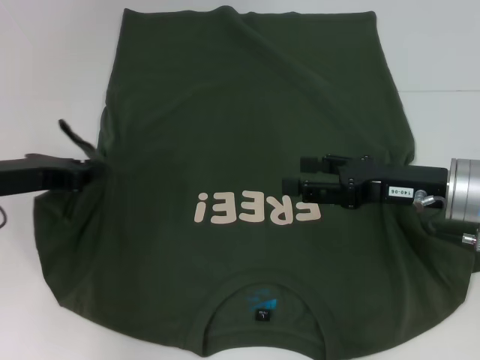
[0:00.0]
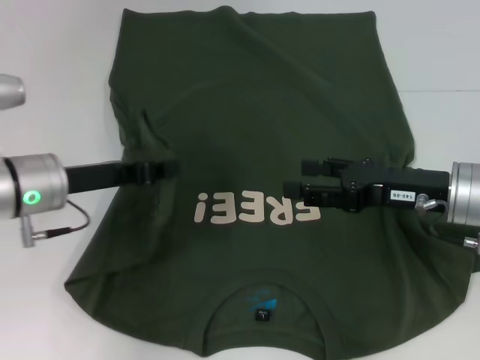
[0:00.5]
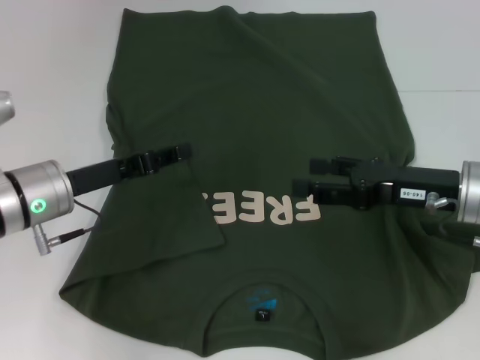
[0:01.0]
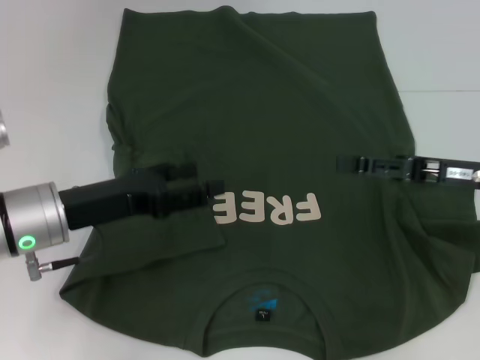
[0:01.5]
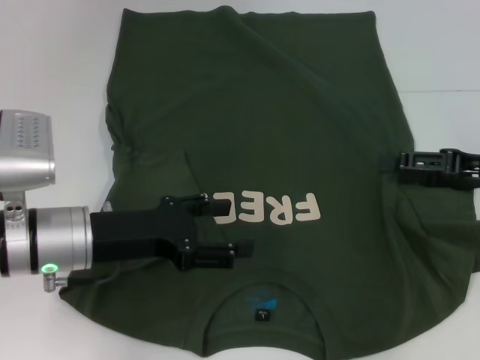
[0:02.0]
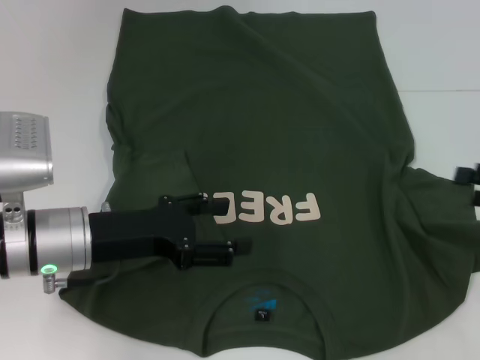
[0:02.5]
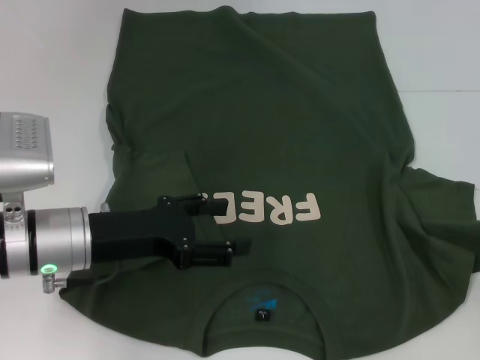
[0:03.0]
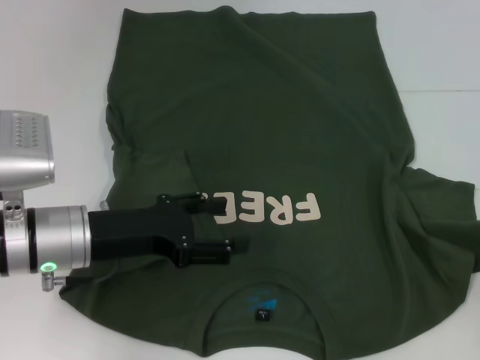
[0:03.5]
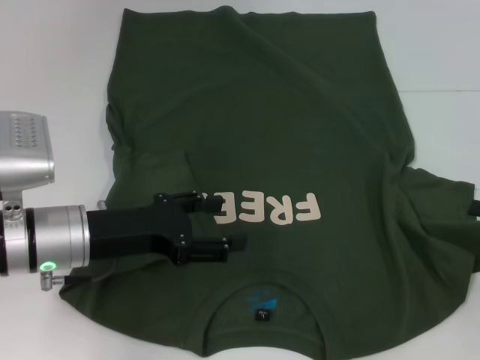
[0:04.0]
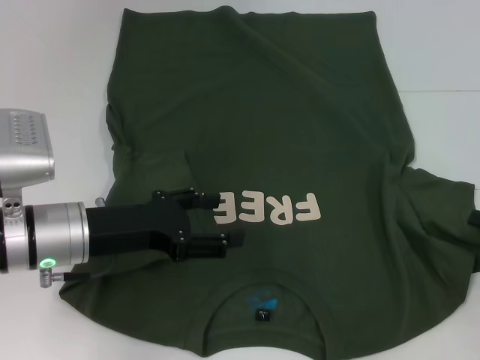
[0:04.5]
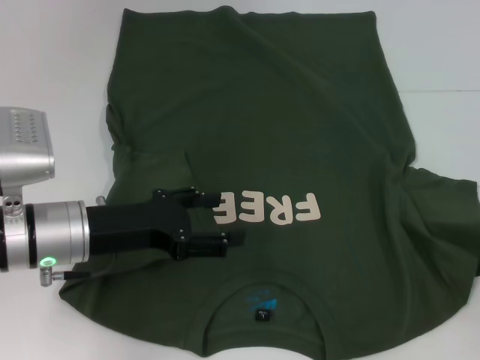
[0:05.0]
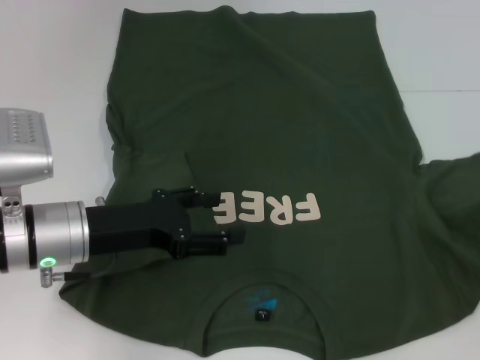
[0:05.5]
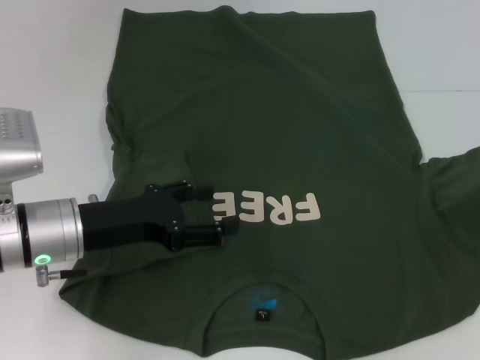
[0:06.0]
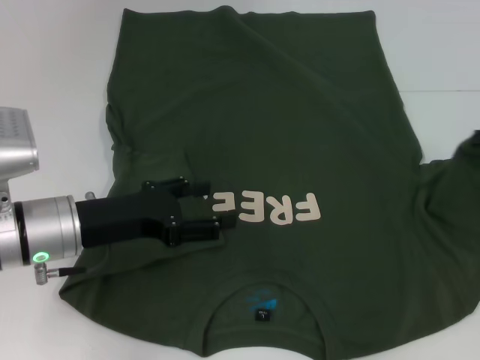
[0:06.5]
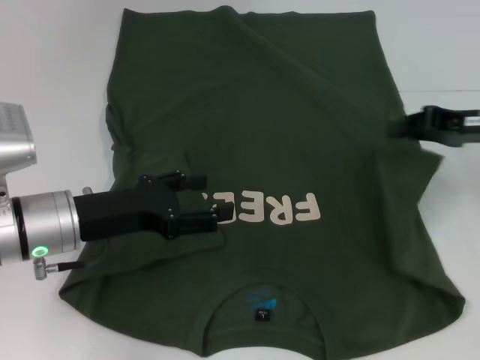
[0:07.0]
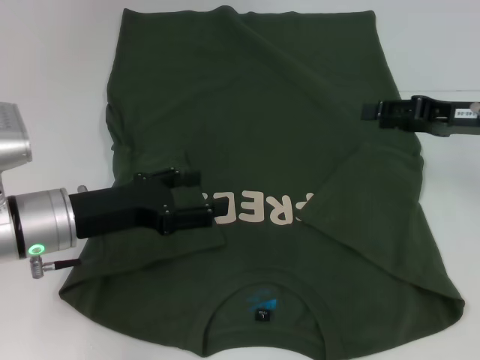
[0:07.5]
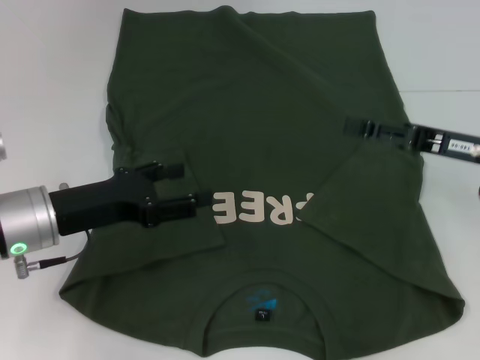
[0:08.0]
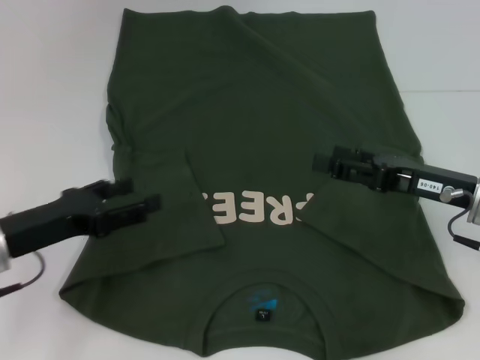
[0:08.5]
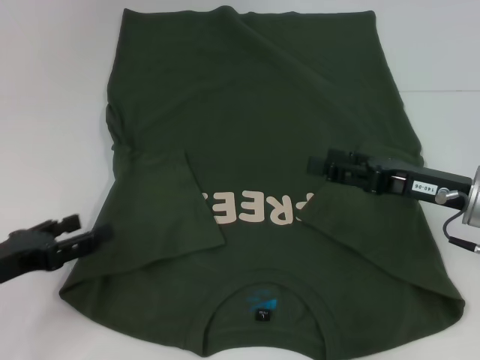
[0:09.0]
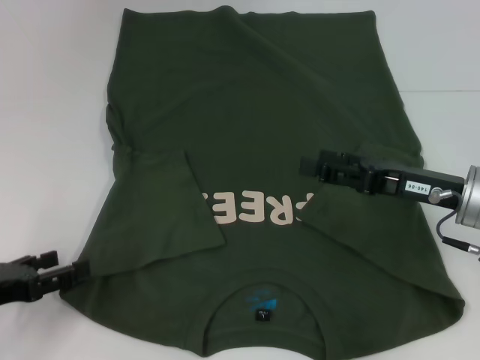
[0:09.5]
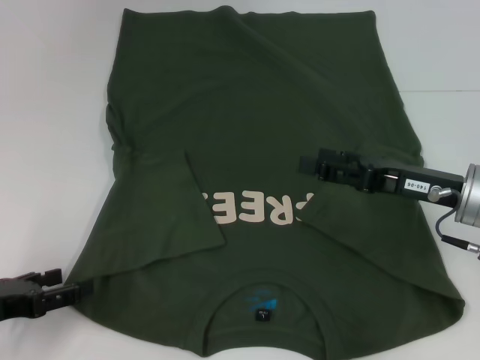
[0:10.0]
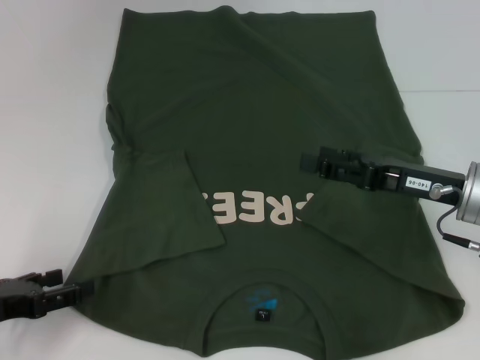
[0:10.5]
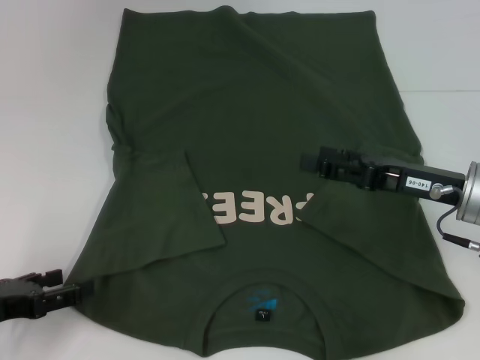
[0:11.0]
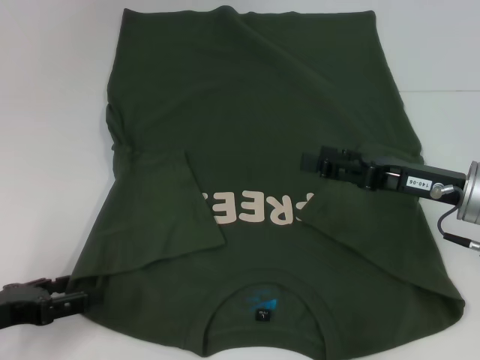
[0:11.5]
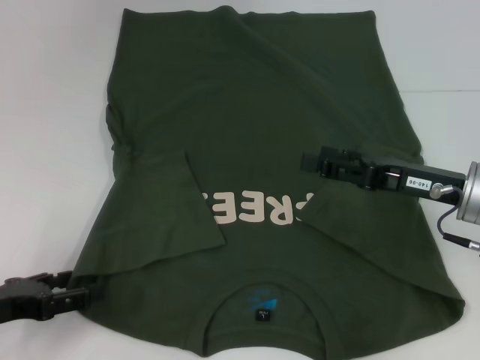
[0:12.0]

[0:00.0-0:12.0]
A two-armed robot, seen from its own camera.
Step, 1.0 to 7.0 s: Fold the bottom right sleeve with your right hand.
0.0 to 2.0 s: Both grippers travel together to the right, some 10 cm. The left gripper opens its fingers.
2.0 to 4.0 s: The right gripper heads to the right, downward and backward, covering some 10 cm.
4.0 to 6.0 s: The right gripper heads upward, covering about 5 cm, and closes.
6.0 to 8.0 s: The right gripper is displaced to the left by approximately 15 cm, and opens.
8.0 to 10.0 s: The left gripper heads to the left and backward, covering roughly 15 cm. Meanwhile the right gripper shifts by some 5 cm.
10.0 to 12.0 s: Both grippers stay about where they are.

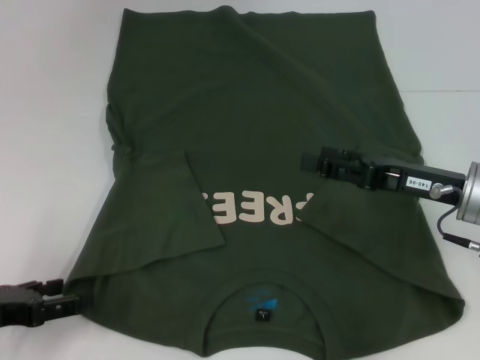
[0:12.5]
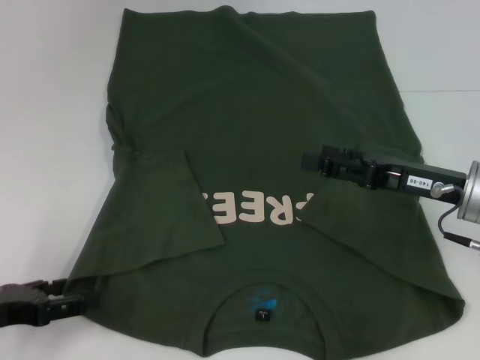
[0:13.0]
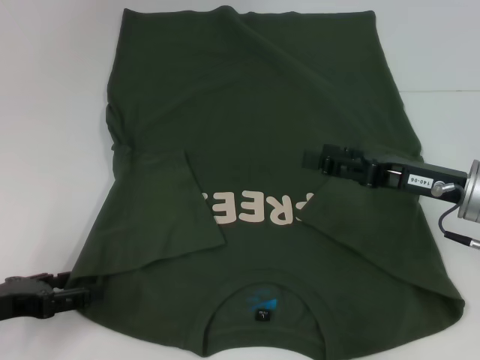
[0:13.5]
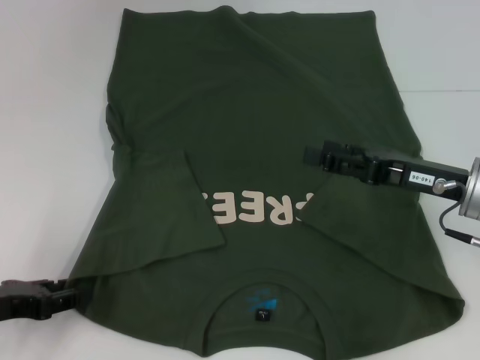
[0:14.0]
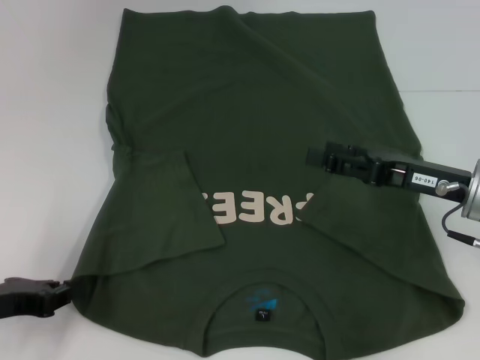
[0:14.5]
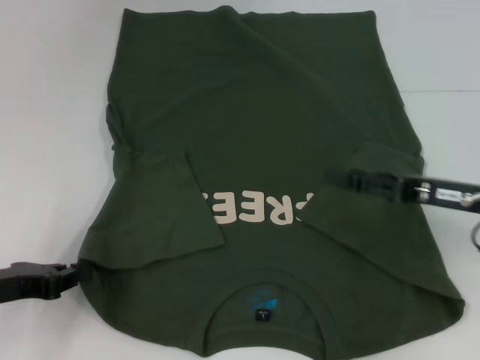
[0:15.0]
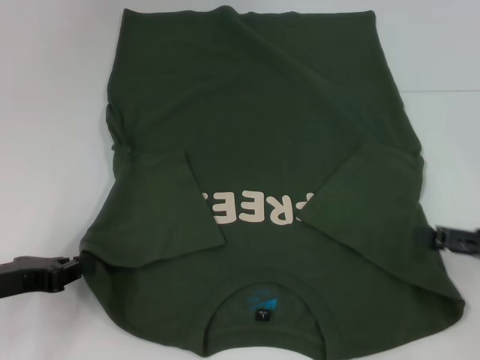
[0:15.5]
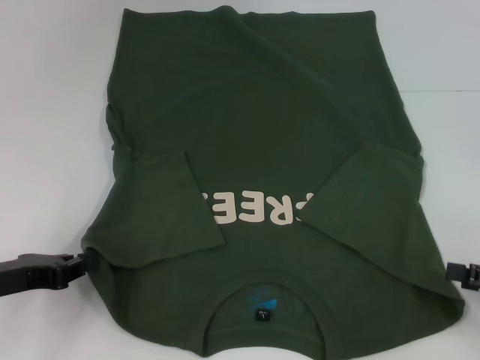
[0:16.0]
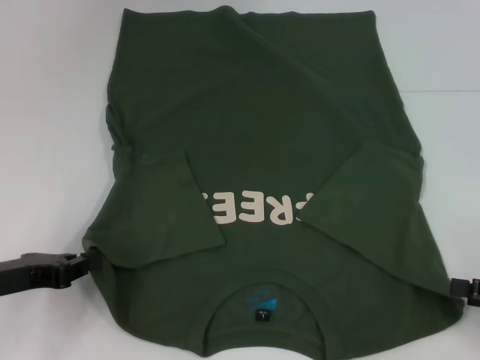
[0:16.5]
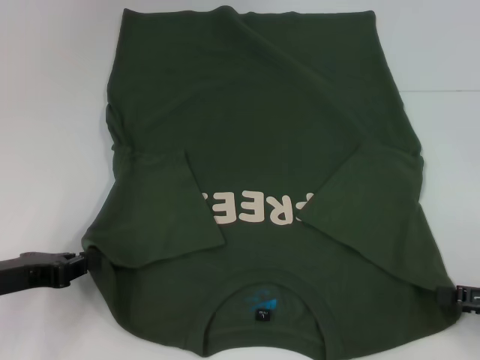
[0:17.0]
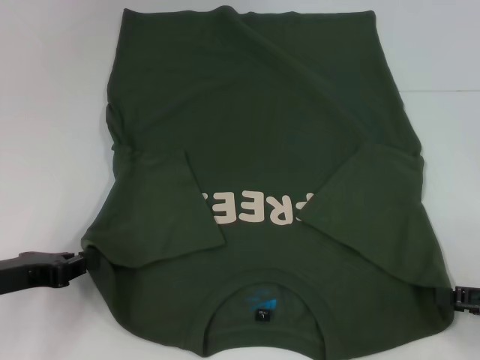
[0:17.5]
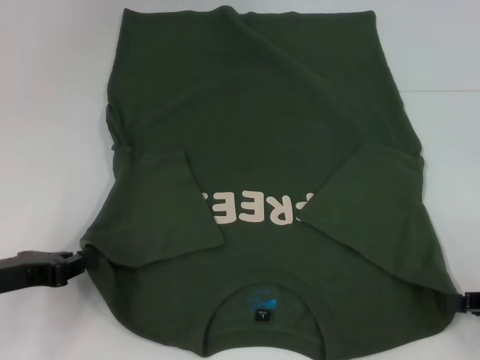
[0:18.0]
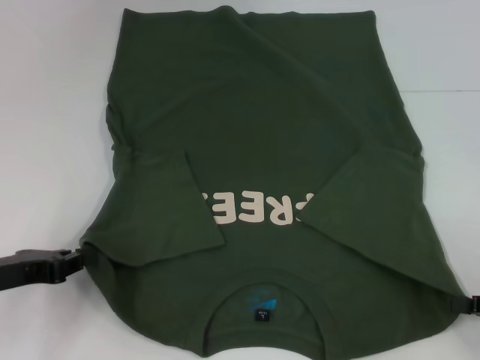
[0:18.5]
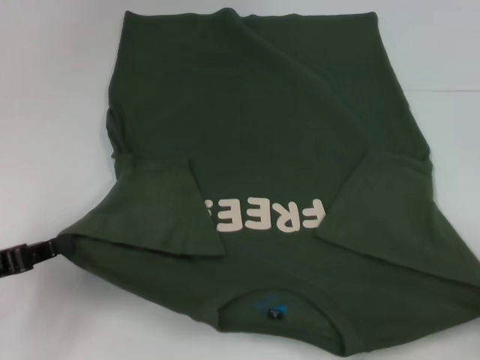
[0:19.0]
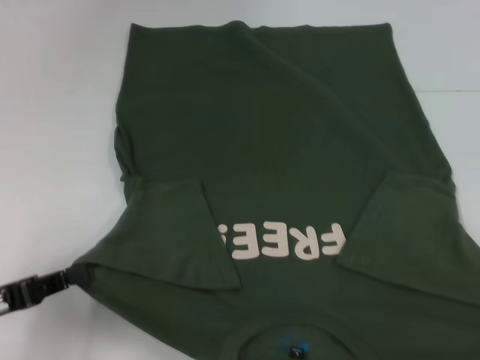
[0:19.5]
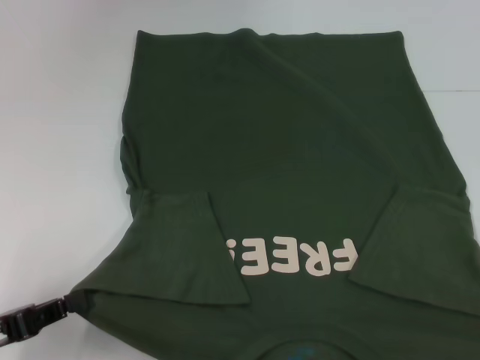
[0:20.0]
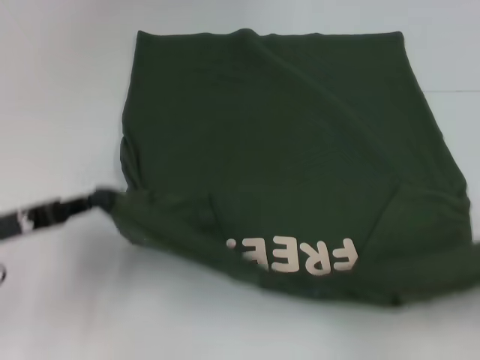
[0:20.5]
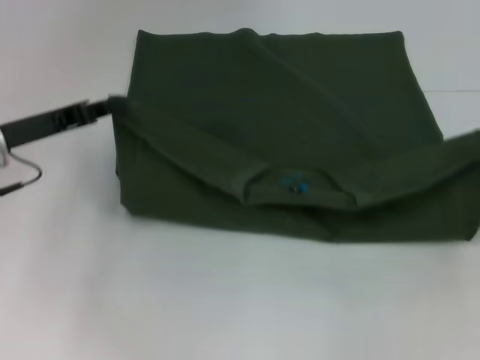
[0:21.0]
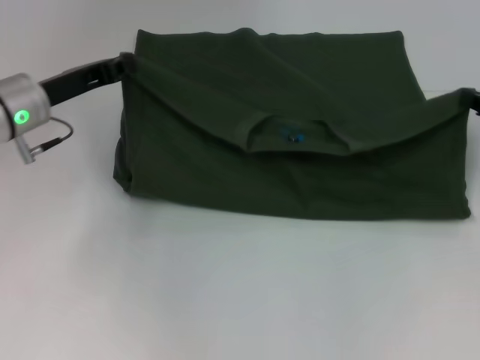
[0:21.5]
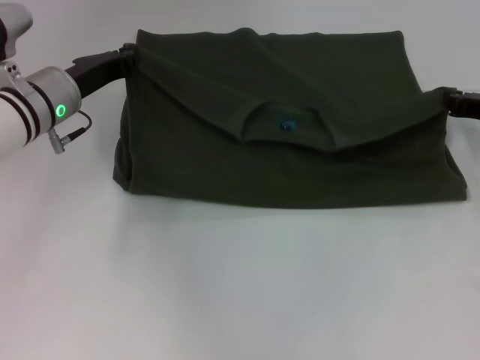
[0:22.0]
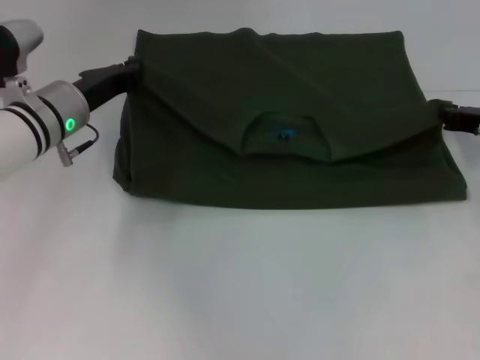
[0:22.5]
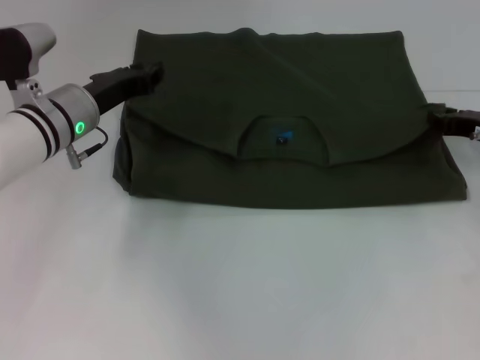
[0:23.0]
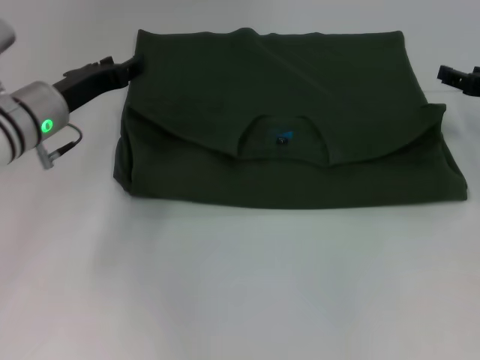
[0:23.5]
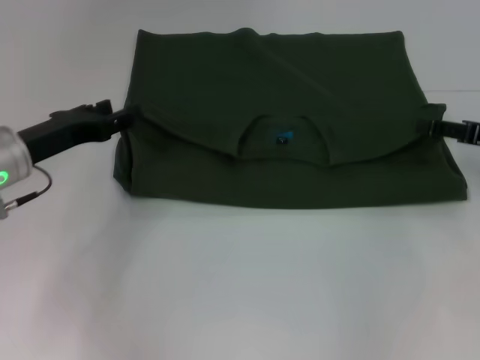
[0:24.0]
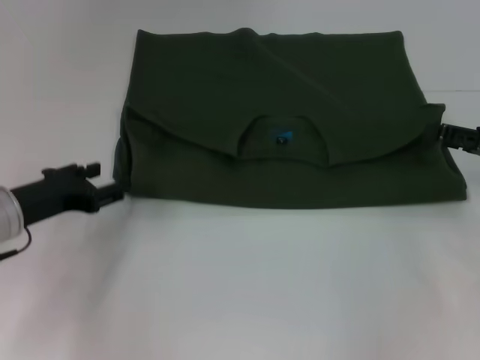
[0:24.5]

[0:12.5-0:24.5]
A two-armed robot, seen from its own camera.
Step, 12.5 to 14.5 s: Grab the bottom left corner with your left hand.
Step, 15.0 to 18.0 s: Grab the bottom right corner with your right hand.
Step, 18.5 to 22.5 s: Fold the clothes with your left hand.
Step, 18.5 to 22.5 s: Fold the clothes with your right hand.
12.5 to 14.5 s: The left gripper closes up.
14.5 to 16.5 s: The right gripper shifts some 15 cm to the right and backward.
16.5 to 18.5 s: The right gripper closes its fingers.
18.5 to 20.5 s: The right gripper moves to the right, some 5 cm, and moves some 10 cm backward and comes back. Meanwhile the left gripper travels backward and back again, approximately 10 cm each way.
20.5 to 22.5 s: The left gripper travels forward and to the right by roughly 20 cm, while the right gripper moves forward and to the left, roughly 25 cm.
22.5 to 24.5 s: The right gripper shifts about 5 cm backward, and opens its fingers. Meanwhile the left gripper shifts roughly 10 cm backward and to the left, and opens up.

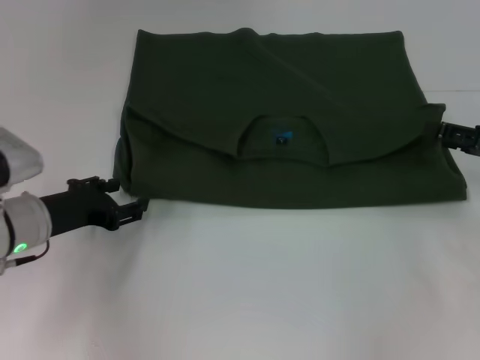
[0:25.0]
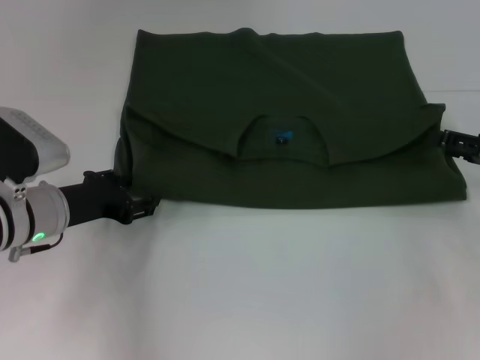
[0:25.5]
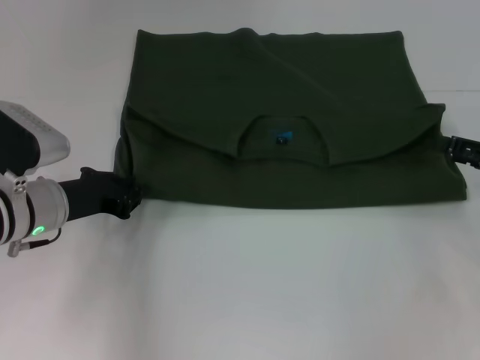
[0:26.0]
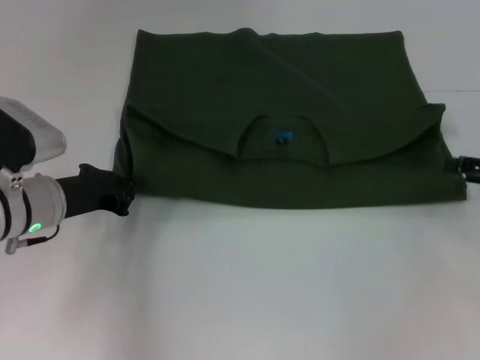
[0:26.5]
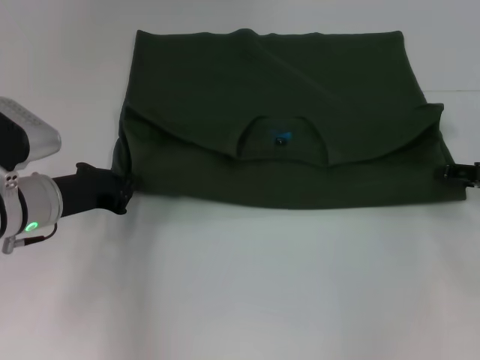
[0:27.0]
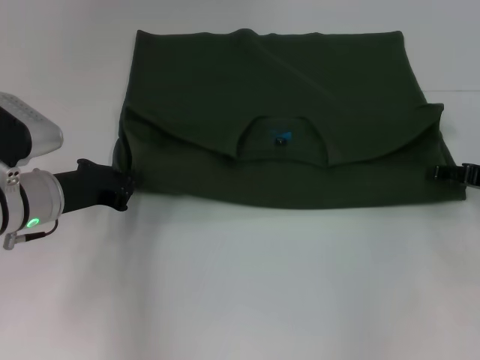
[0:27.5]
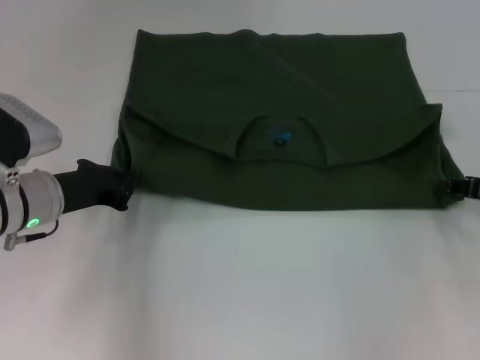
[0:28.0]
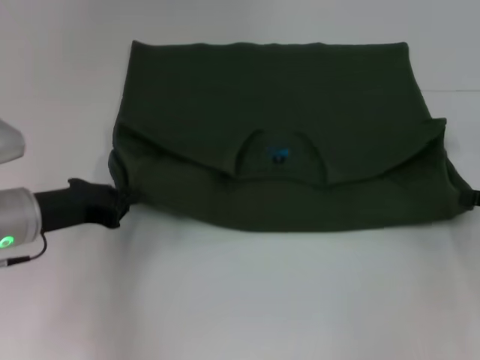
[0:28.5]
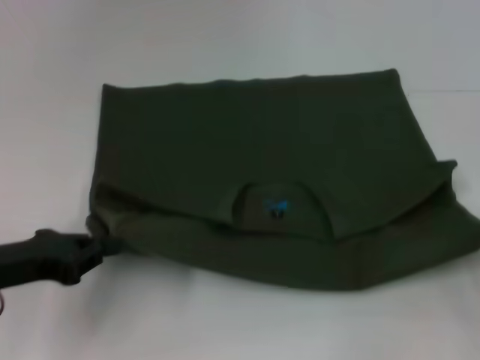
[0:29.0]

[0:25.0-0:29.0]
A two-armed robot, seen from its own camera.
25.0 to 27.0 s: The left gripper closes its fingers.
27.0 to 29.0 s: The left gripper is displaced backward and to the left by roughly 10 cm. The right gripper goes some 10 cm backward, and closes.
